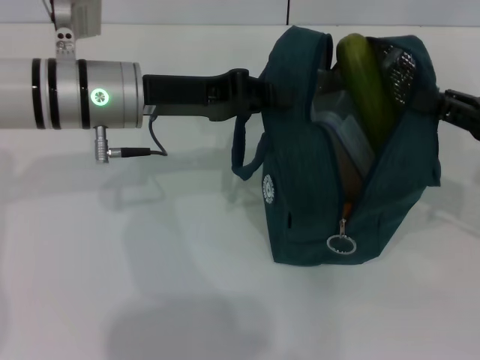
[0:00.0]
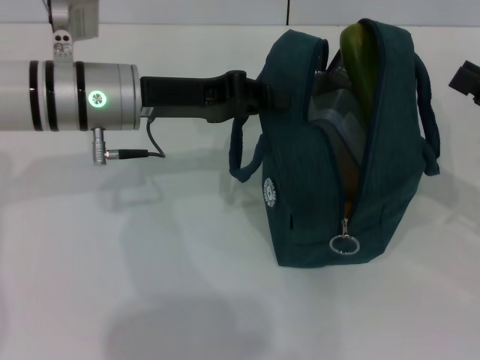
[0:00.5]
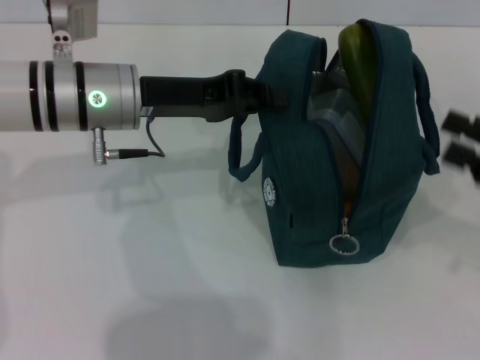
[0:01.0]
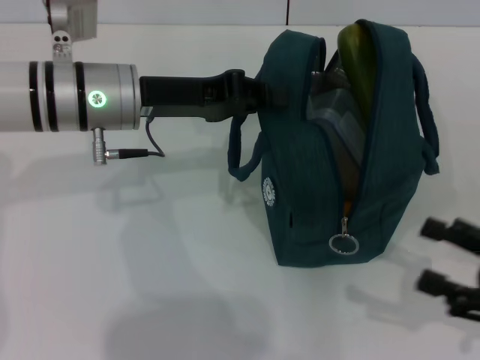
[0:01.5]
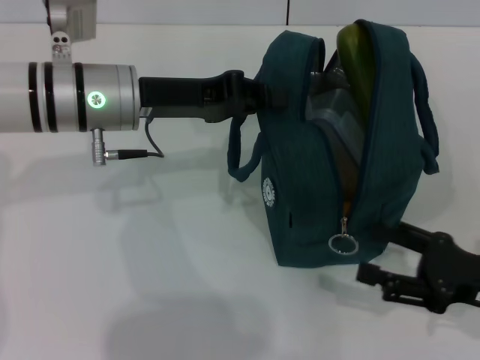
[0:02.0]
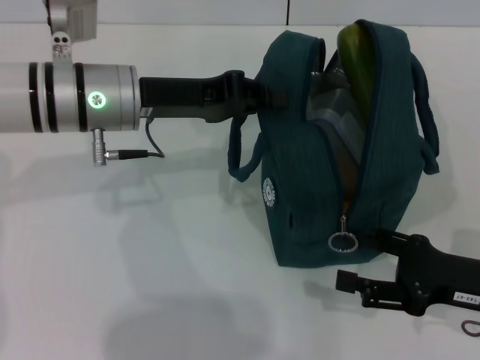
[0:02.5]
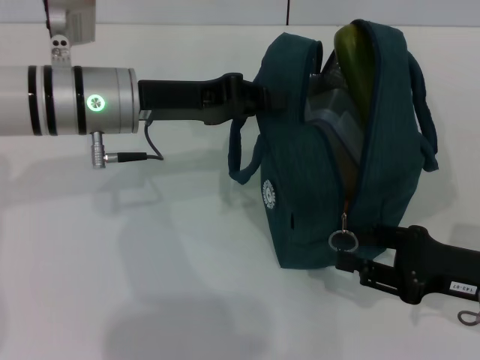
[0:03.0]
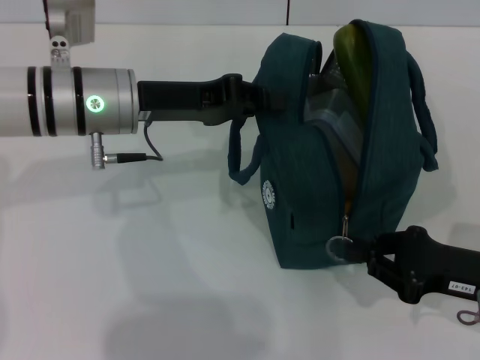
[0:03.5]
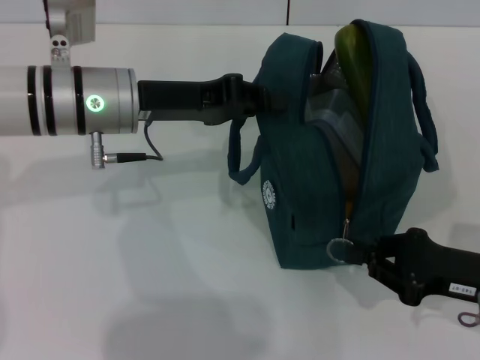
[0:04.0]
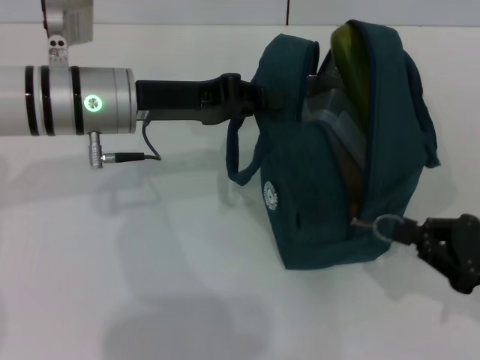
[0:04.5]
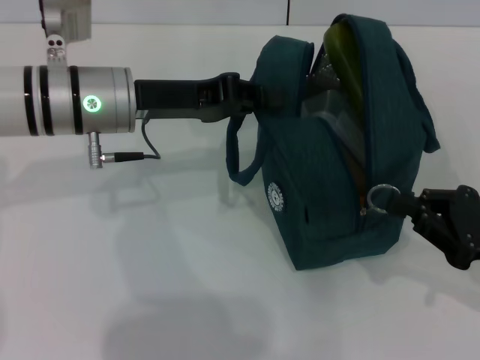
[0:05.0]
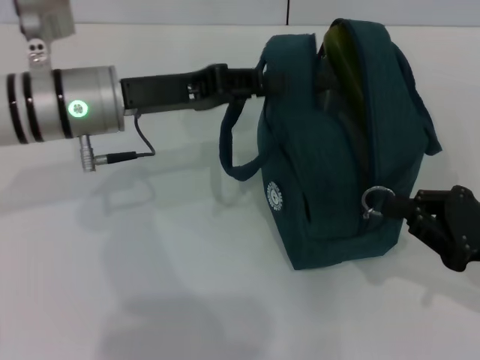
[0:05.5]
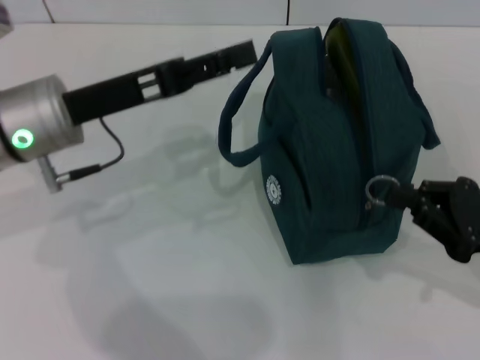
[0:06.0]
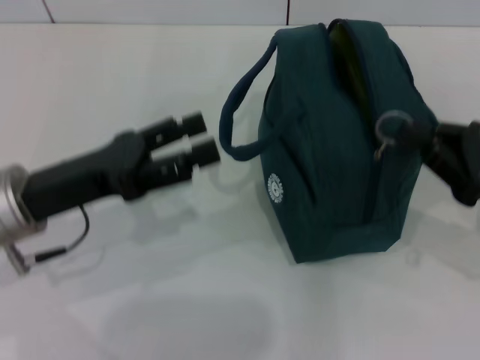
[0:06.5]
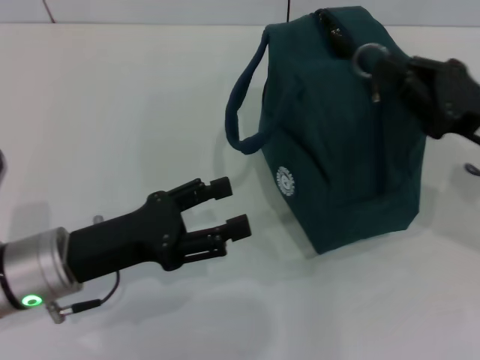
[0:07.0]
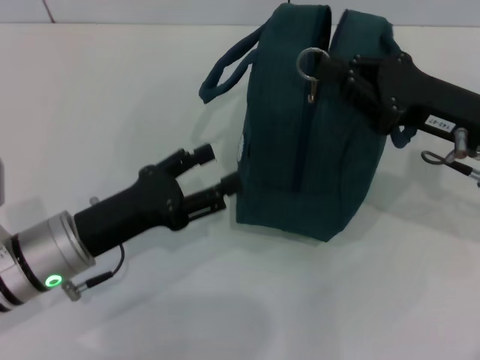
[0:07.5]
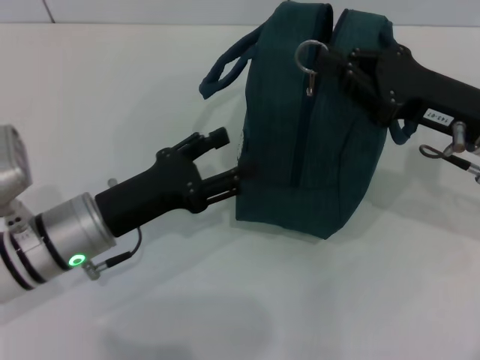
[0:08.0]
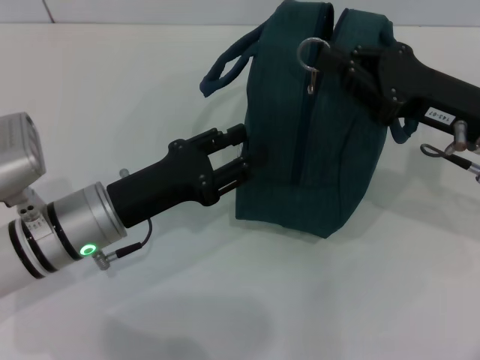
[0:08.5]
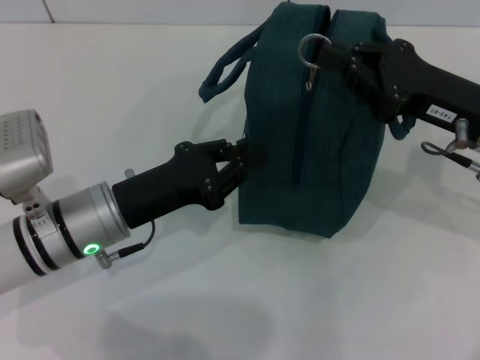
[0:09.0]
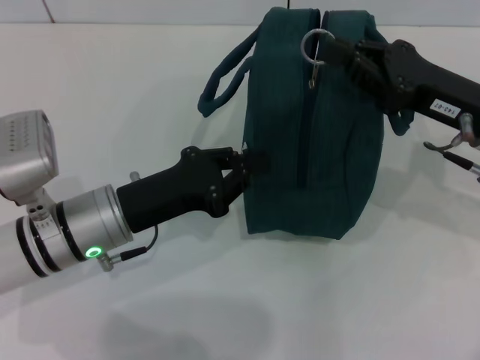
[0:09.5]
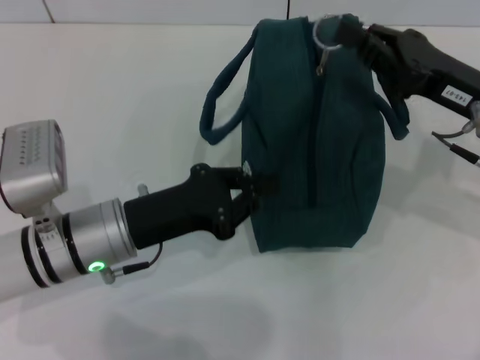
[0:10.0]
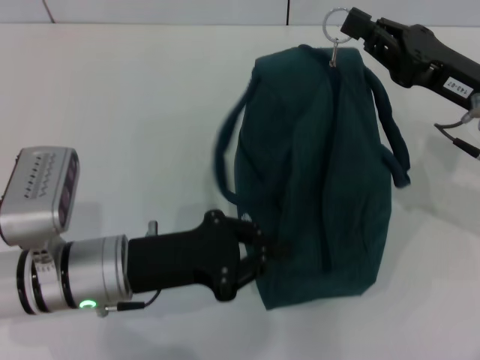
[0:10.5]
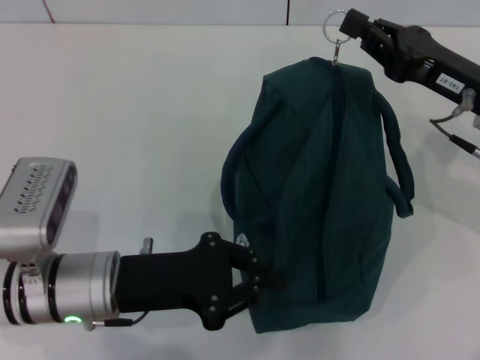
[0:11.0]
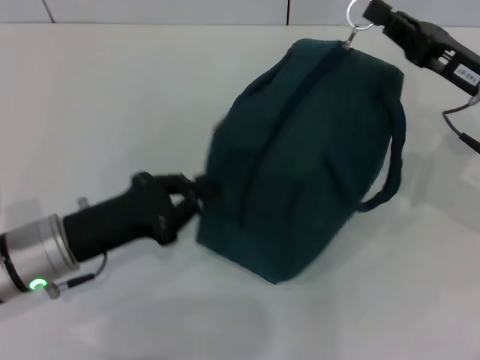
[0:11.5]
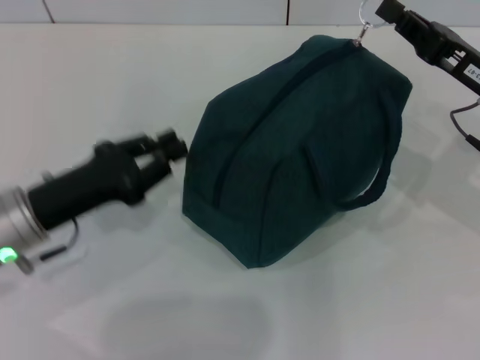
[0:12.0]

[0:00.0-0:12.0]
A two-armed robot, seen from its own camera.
0:00.0 to 0:02.0: The right gripper goes some 10 cm backward and downward, and opens up.
0:02.0 to 0:04.0: The right gripper closes its fingers.
0:04.0 to 0:06.0: The left gripper ends up some 5 cm from where it was, and opens its fingers.
0:06.0 to 0:08.0: The left gripper shifts about 10 cm downward and backward. The right gripper is displaced forward, to the left and upward by roughly 15 cm.
0:08.0 to 0:10.0: The left gripper closes up.
0:10.0 to 0:12.0: The left gripper goes roughly 5 cm to the left.

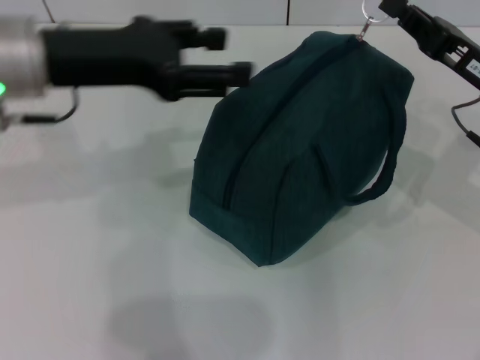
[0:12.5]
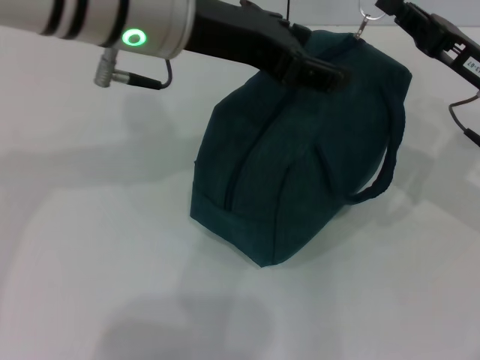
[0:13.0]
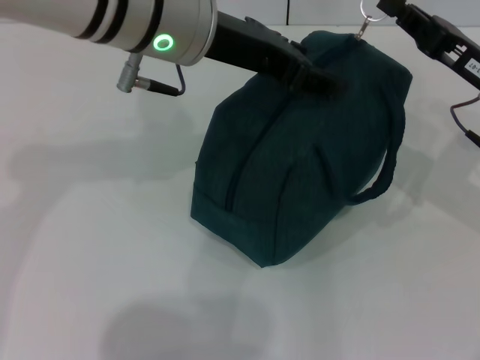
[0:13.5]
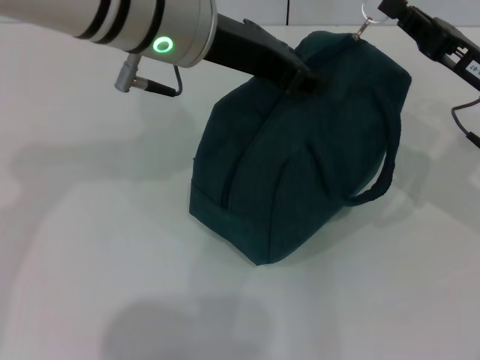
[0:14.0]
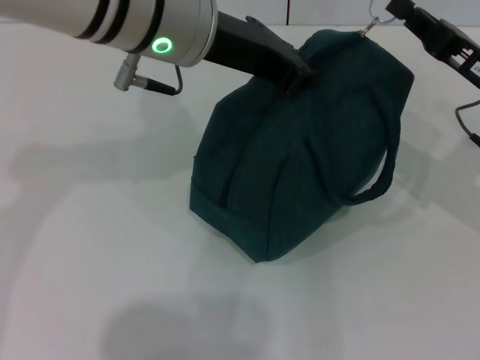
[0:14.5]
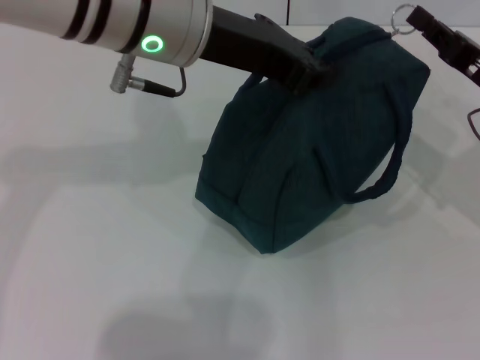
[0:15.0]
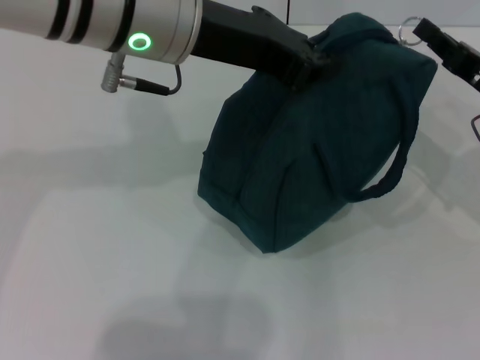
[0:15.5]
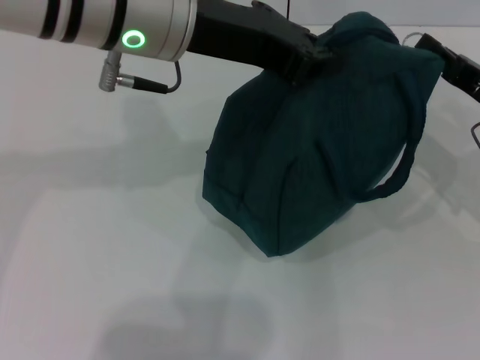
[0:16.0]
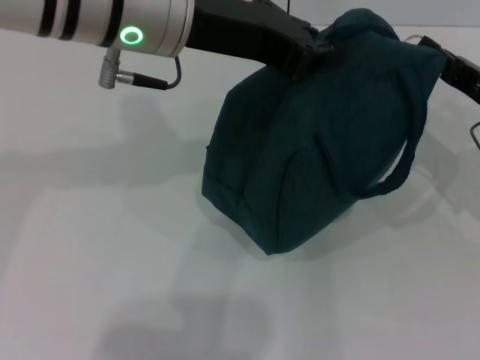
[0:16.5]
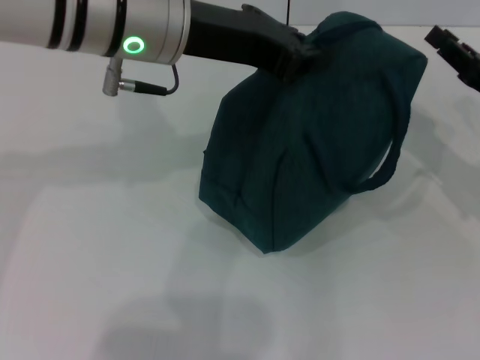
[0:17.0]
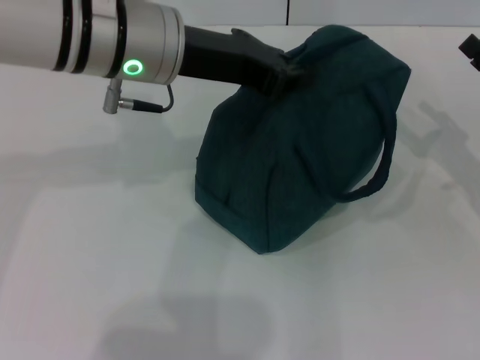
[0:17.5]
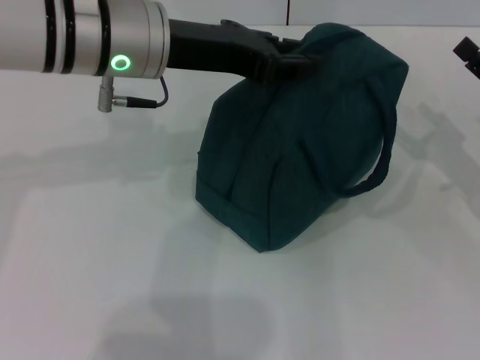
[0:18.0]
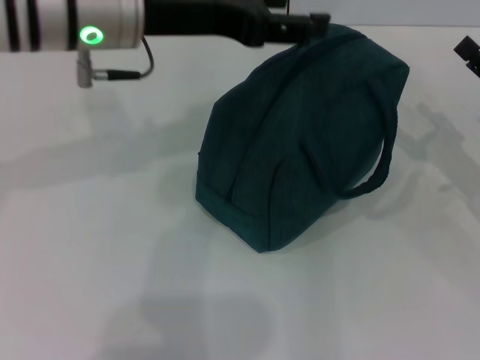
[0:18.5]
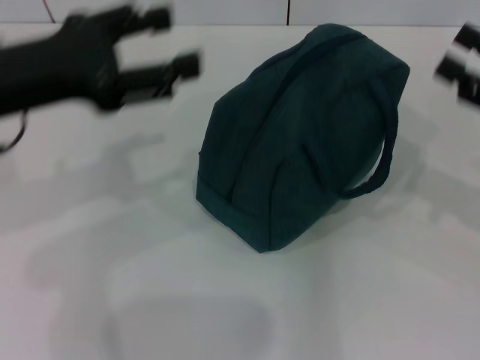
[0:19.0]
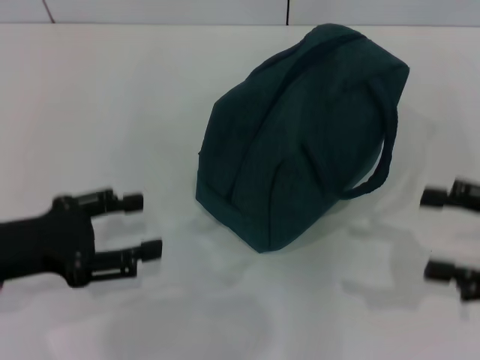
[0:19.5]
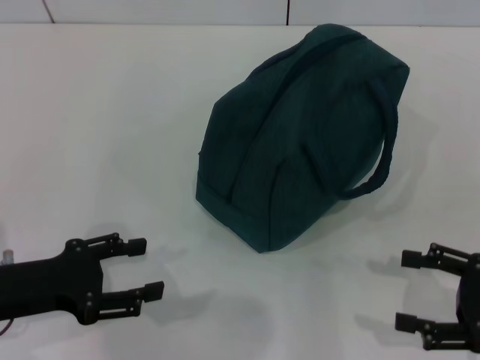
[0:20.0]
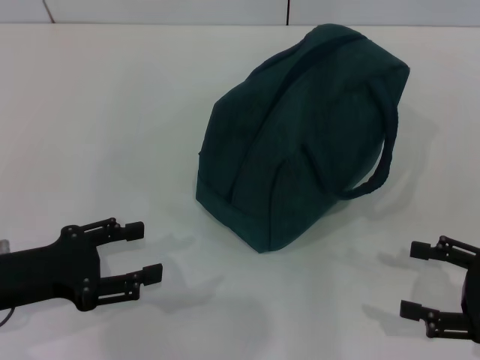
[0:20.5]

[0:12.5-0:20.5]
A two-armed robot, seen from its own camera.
Step, 0:12.5 to 0:16.5: Zip up the lunch bag with your right hand.
Step, 0:17.0 to 0:18.0: Hold the lunch bag with your left hand.
0:12.5 to 0:14.5: The left gripper is displaced to the right by approximately 10 cm, and closes up.
0:14.5 to 0:16.5: The grippers make only small movements.
0:16.5 to 0:18.5: The left gripper opens its fingers. The right gripper shifts by approximately 5 cm, and opens.
0:18.5 to 0:20.5: The right gripper travels backward by some 10 cm. The left gripper goes some 25 cm downward, backward and to the left.
